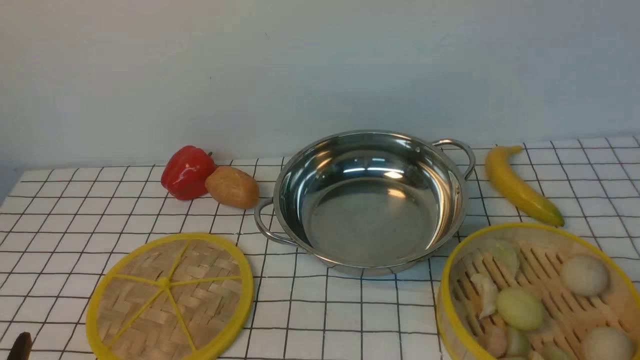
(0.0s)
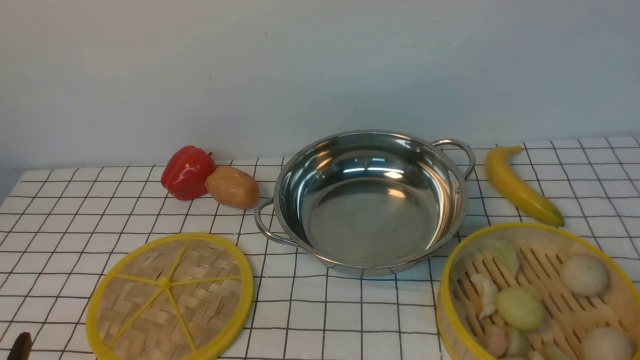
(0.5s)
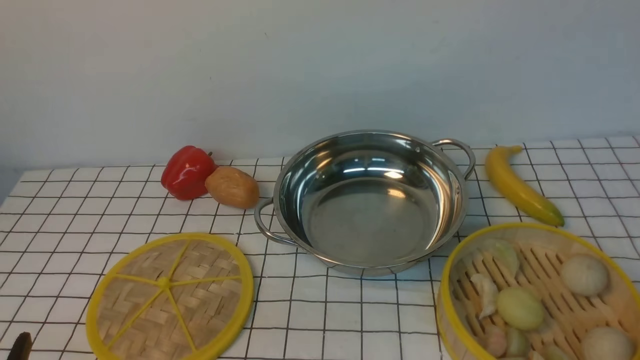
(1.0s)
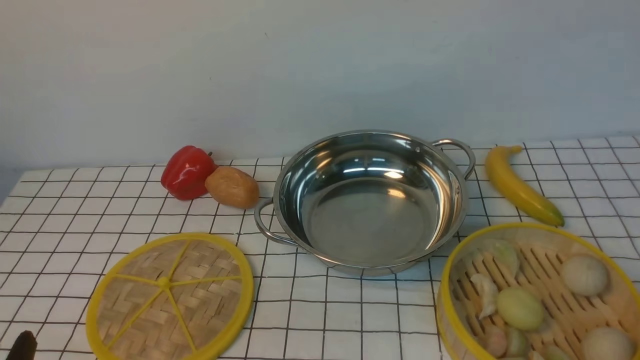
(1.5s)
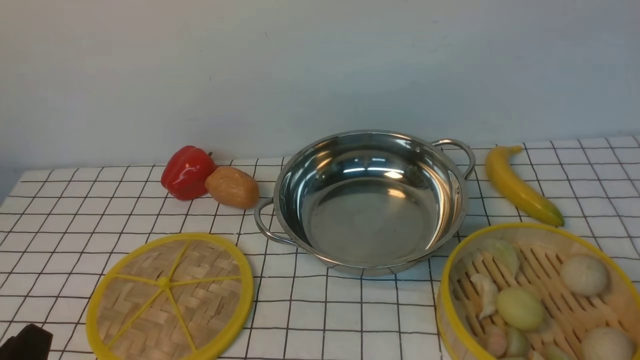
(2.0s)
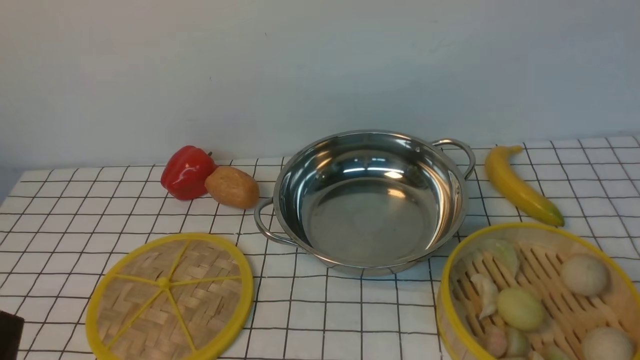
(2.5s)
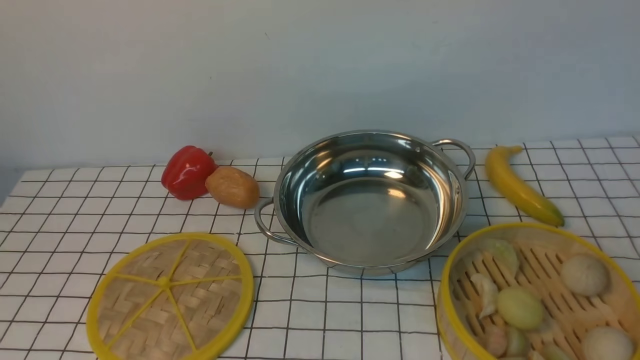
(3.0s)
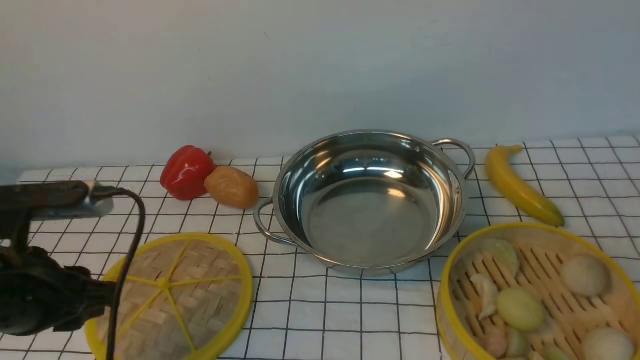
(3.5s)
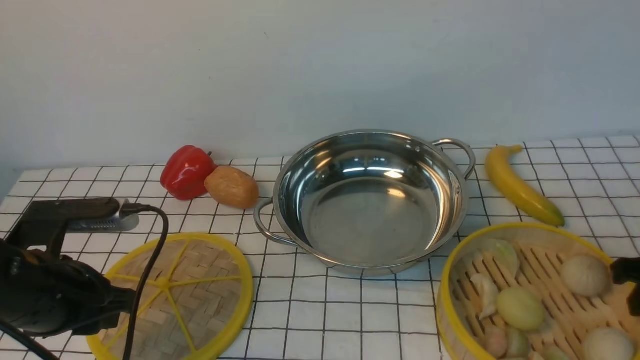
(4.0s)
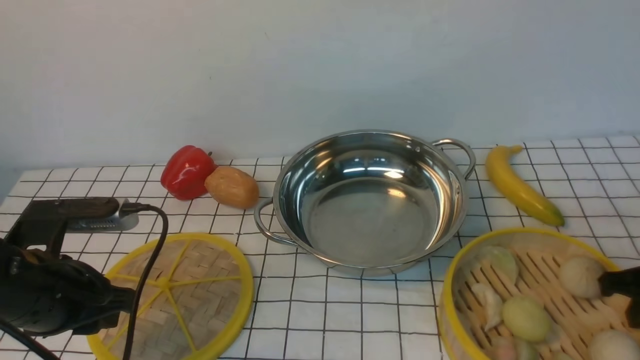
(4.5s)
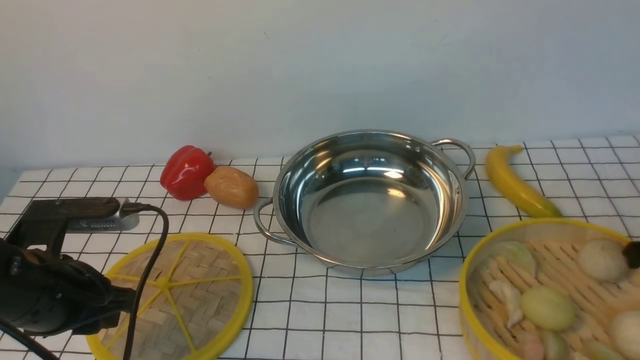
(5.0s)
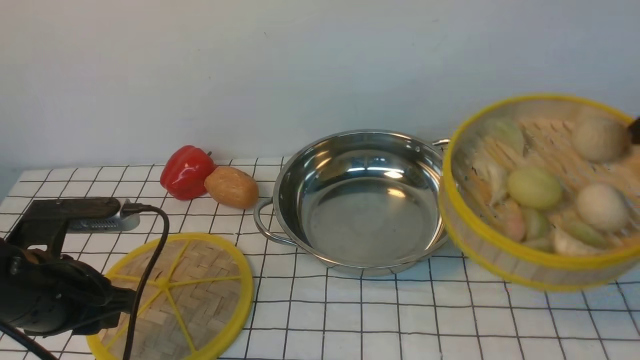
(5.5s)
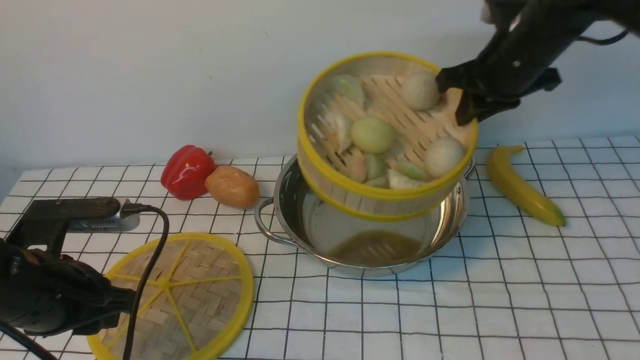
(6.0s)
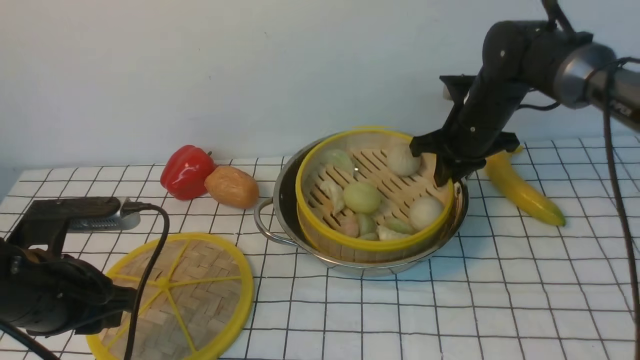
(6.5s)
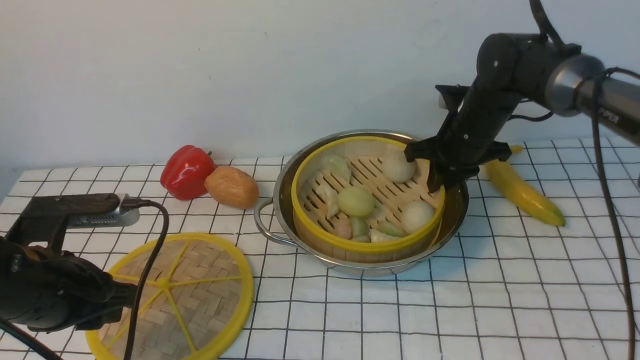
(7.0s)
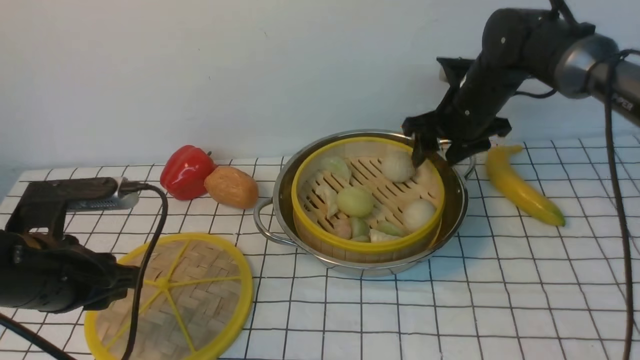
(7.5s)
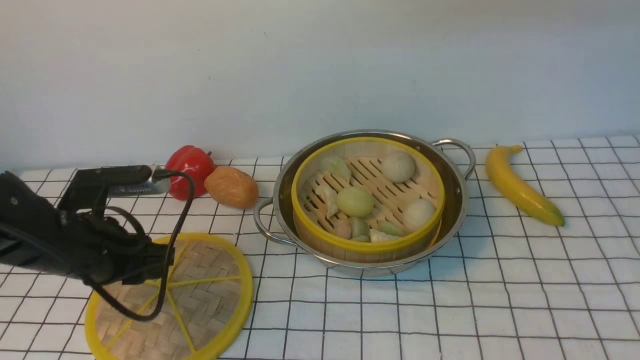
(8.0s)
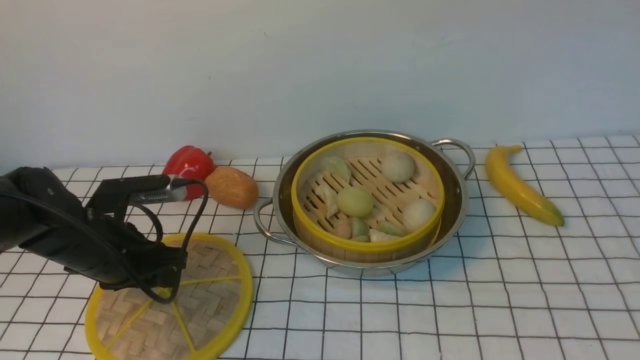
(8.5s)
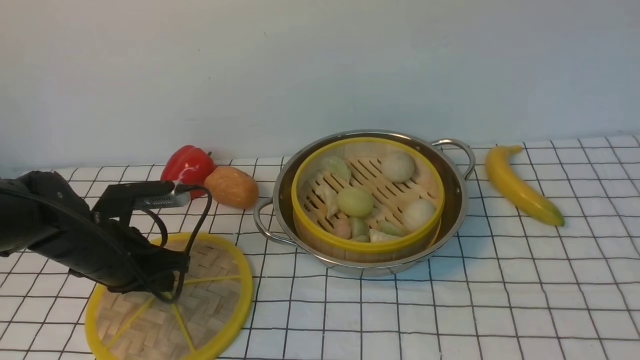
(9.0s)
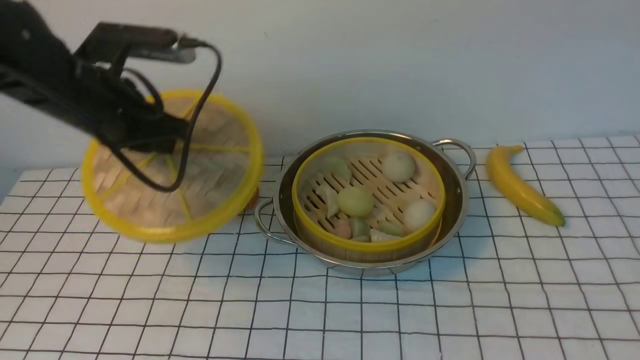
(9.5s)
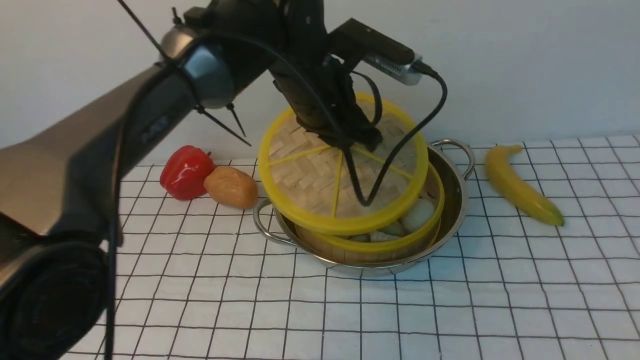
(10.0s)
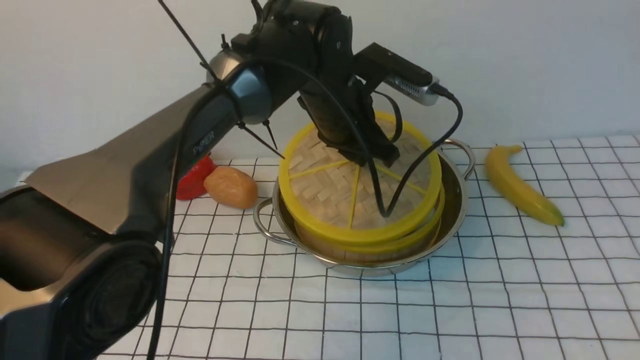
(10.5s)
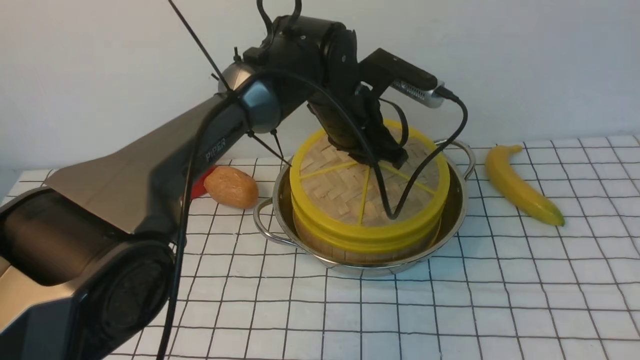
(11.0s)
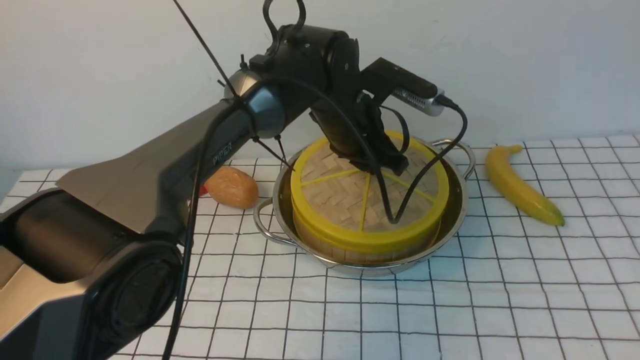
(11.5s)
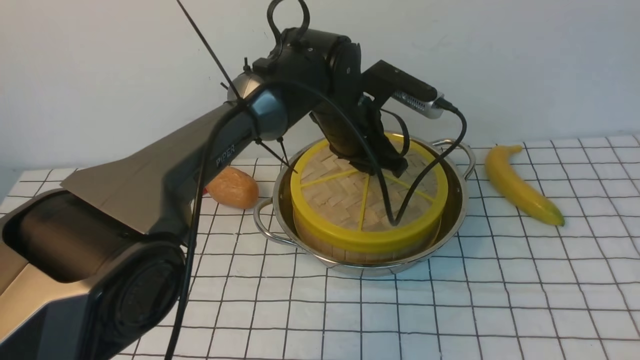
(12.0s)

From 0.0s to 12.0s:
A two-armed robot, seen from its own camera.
Task of the whole recording: place the steamer in the pot on the white tablecloth, and put the lid on the steamer.
Step, from 0.0s to 5.0s: use the right arm to lift the steamer closest to it.
Step, from 5.5s to 7.5s: use the right arm to put the steamer into the iron steamer pot in the middle.
Step, from 8.0s to 9.0s: use the left arm to lift the lid of the steamer.
From 2.0s to 4.0s: The left gripper goes roughly 15 cm forward.
From 4.0s to 6.0s: The right gripper heads forward, to the left and upward, covering about 25 cm.
From 6.0s to 8.0s: The right gripper is displaced upward by about 20 cm, and opens up; the left gripper shifts some 5 cm forward.
From 8.0s to 10.0s: The right gripper is displaced backward and upward by roughly 25 cm, while the left gripper goes roughly 25 cm to the right, forward and upward.
From 10.0s to 12.0s: The left gripper travels downward by about 5 cm.

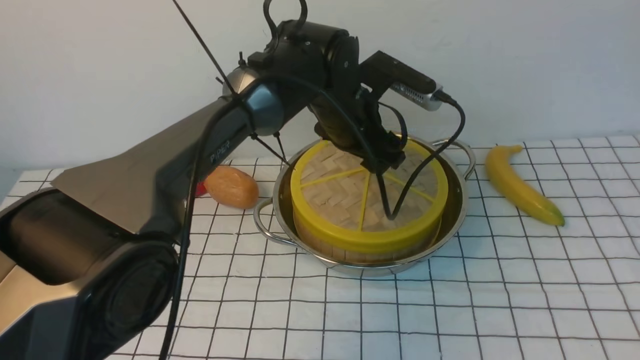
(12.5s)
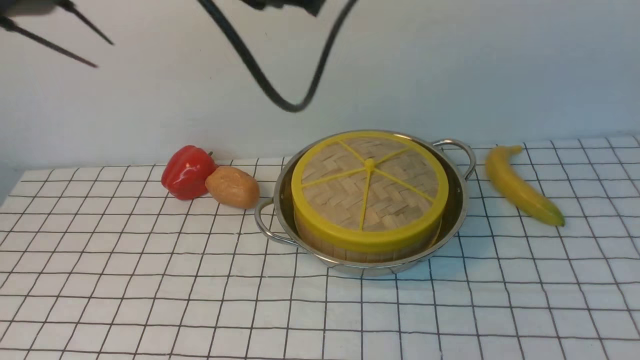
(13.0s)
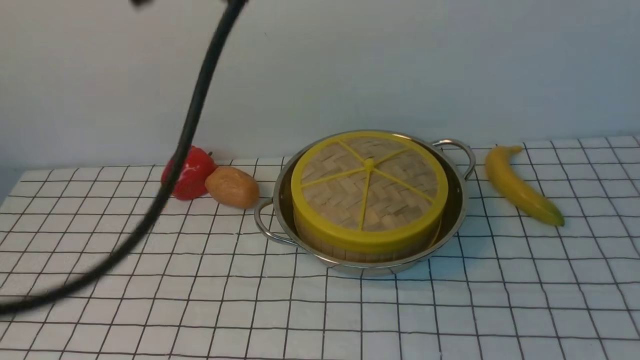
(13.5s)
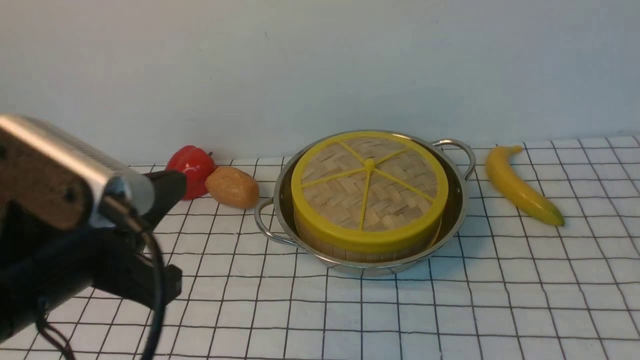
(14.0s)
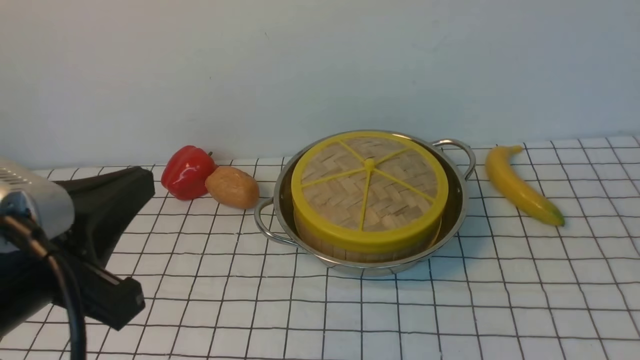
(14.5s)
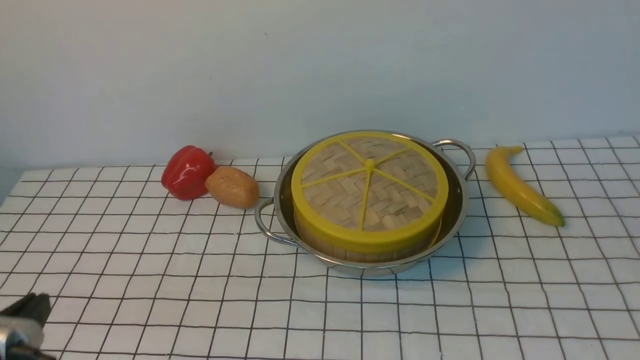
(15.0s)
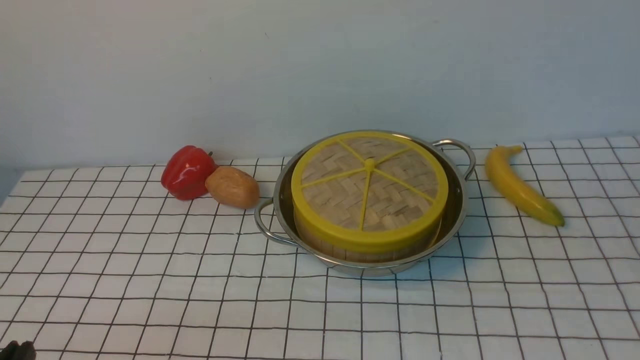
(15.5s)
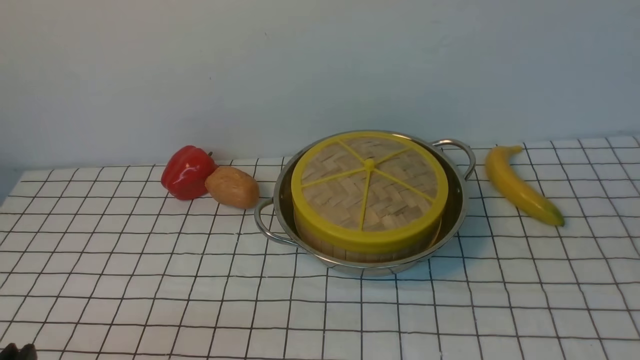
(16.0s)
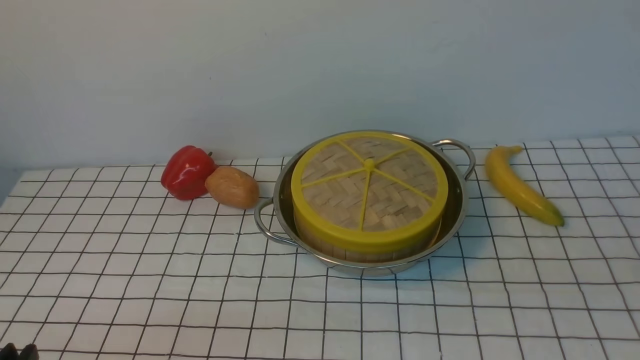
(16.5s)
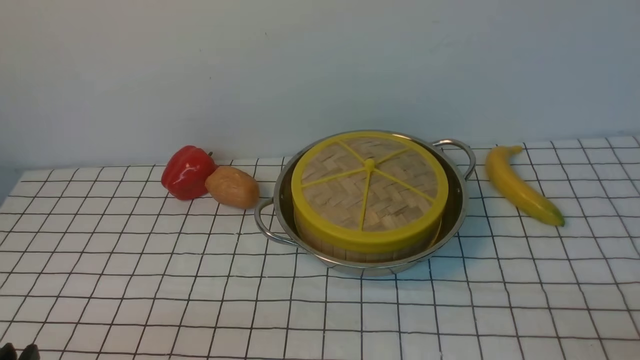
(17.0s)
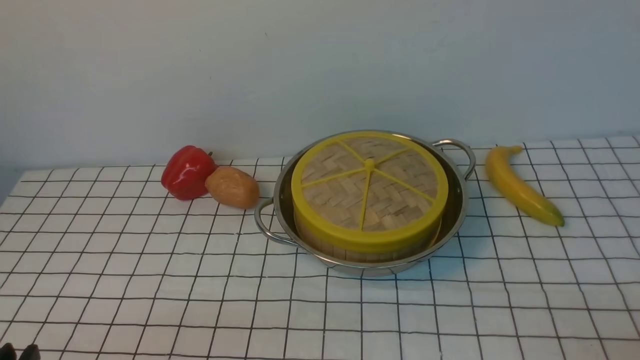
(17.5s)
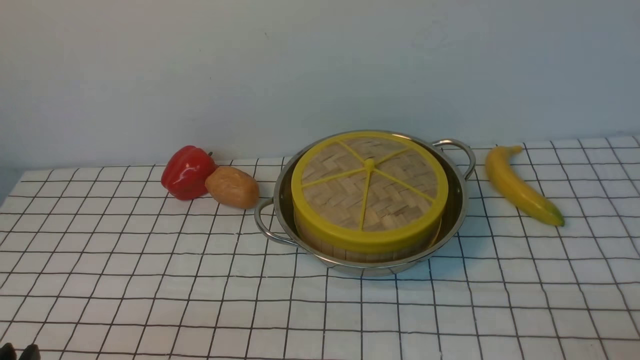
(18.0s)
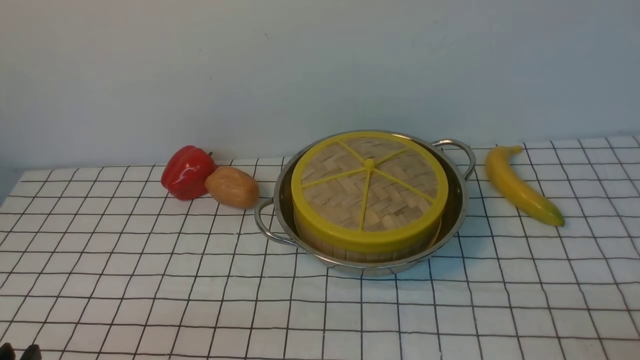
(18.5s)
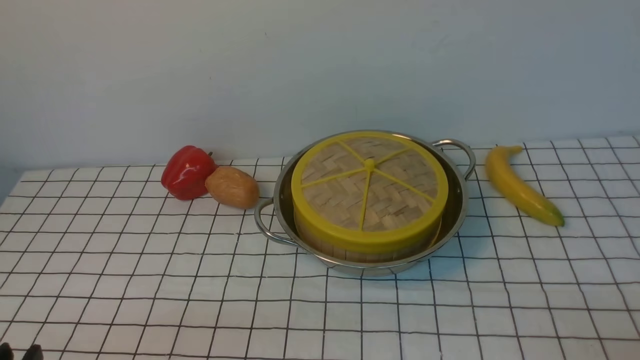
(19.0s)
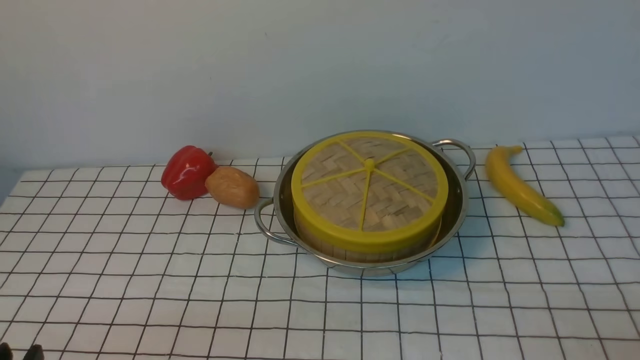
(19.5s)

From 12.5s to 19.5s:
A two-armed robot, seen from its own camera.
Task of the whole recording: place the steamer in the pot on the white tablecloth, and put the lid on the steamer.
From 12.5s to 14.5s: The right gripper goes some 25 cm downward, and closes, while the left gripper moves backward and to the left, some 35 cm, and closes its fingers.
From 14.5s to 16.0s: The left gripper shifts roughly 20 cm downward, backward and to the left.
From 17.5s to 19.5s: Neither gripper changes place.
